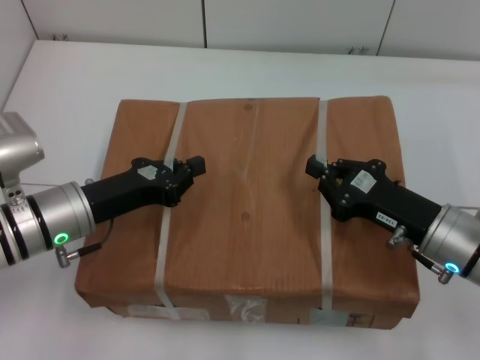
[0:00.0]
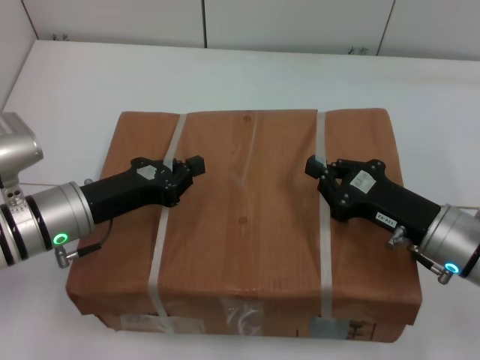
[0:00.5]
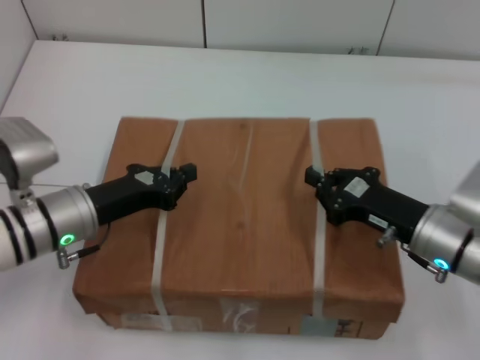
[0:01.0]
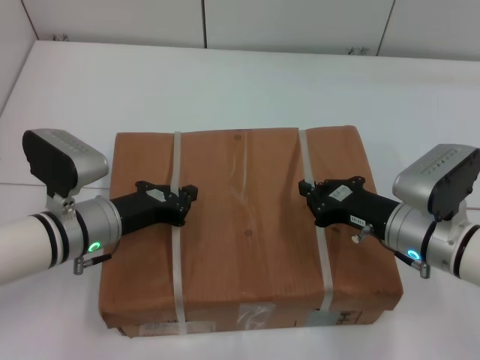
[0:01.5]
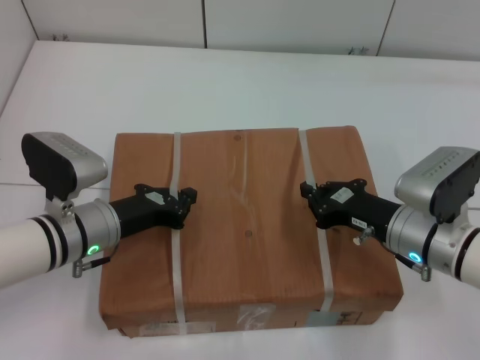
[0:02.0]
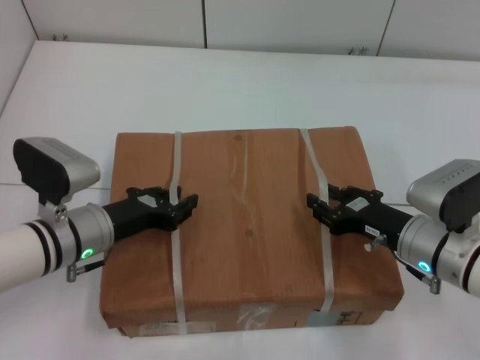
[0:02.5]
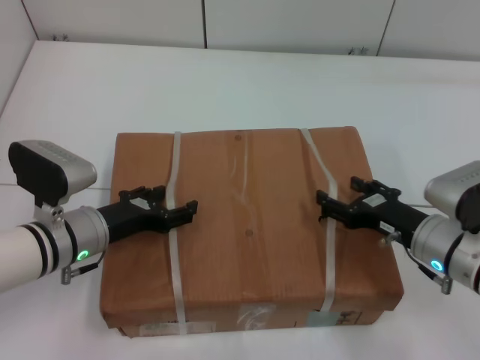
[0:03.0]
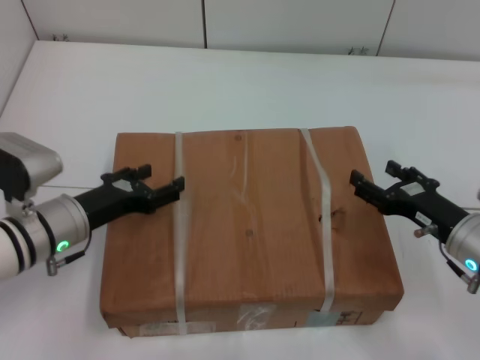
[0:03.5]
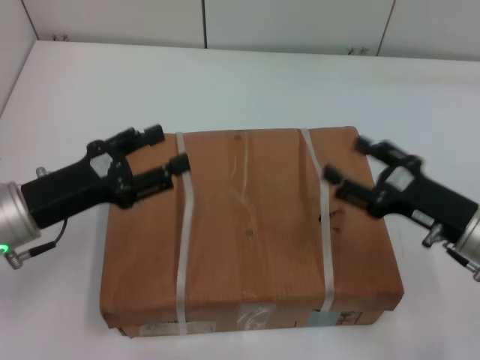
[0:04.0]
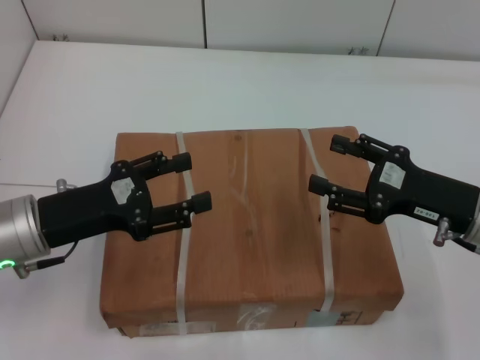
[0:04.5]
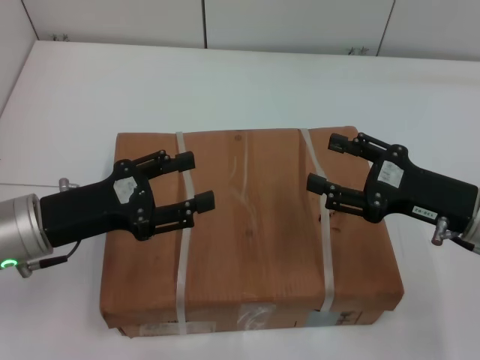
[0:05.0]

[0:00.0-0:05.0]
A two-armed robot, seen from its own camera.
Task of the whole recording: place the box on the table with both arms.
Step, 0:00.0 to 0:01.5: Place the box on the table with left gripper.
Step, 0:00.0 to 0:01.5: Place the box on the table with right gripper.
0:02.5 to 0:05.0: Both grippers move upward, about 5 cm. The left gripper opens, while the right gripper opens.
